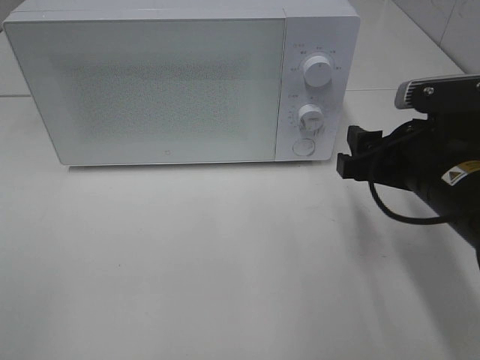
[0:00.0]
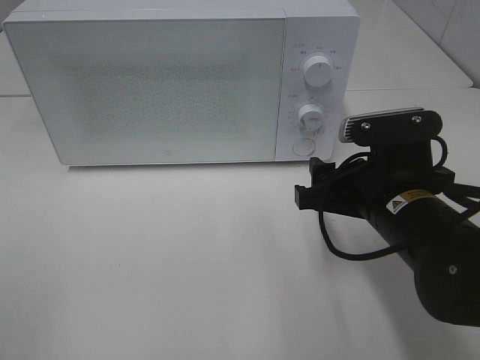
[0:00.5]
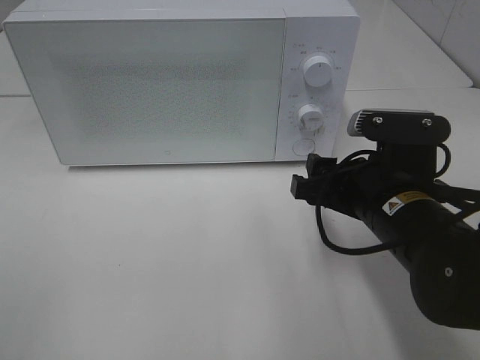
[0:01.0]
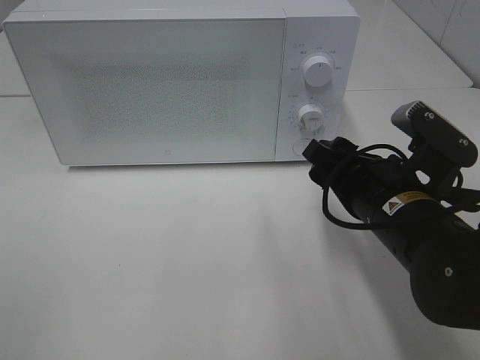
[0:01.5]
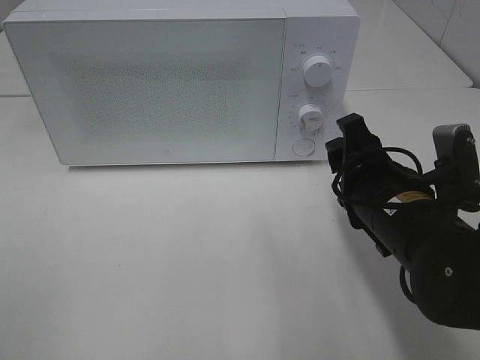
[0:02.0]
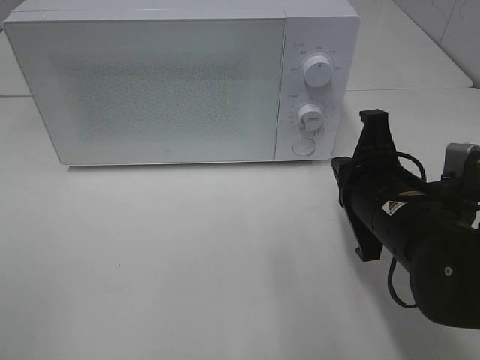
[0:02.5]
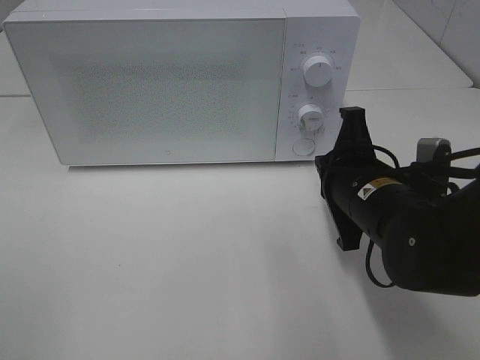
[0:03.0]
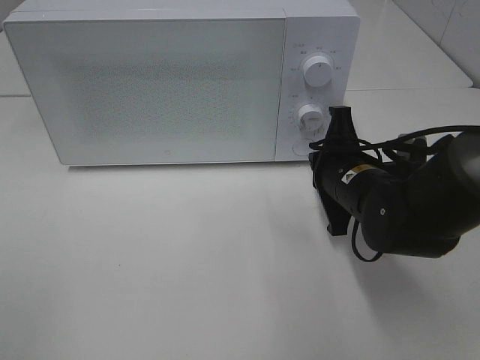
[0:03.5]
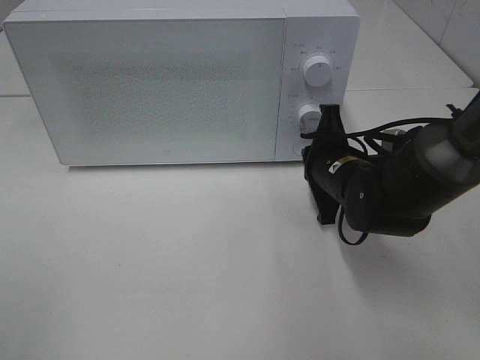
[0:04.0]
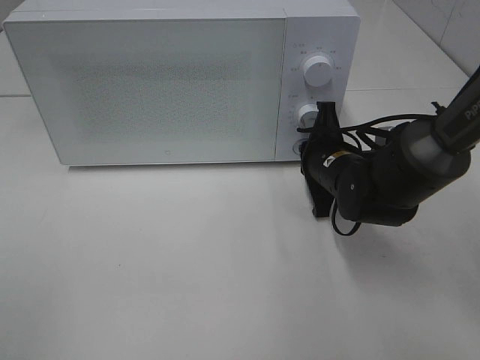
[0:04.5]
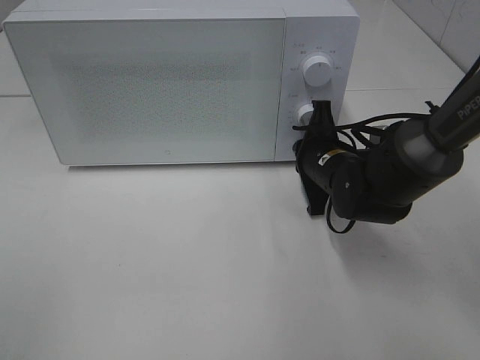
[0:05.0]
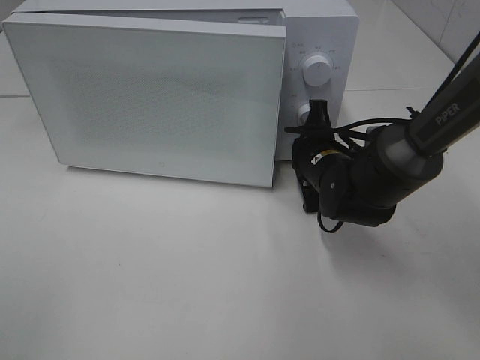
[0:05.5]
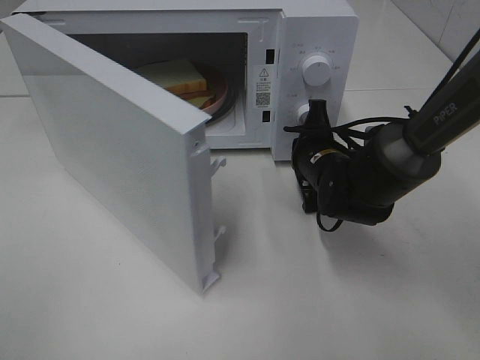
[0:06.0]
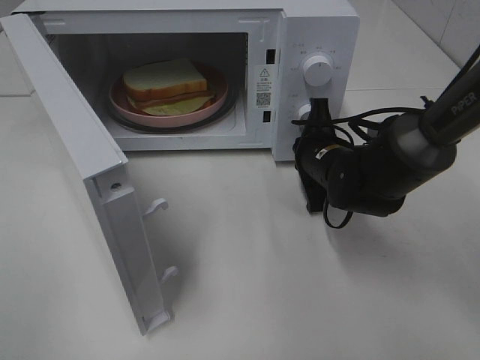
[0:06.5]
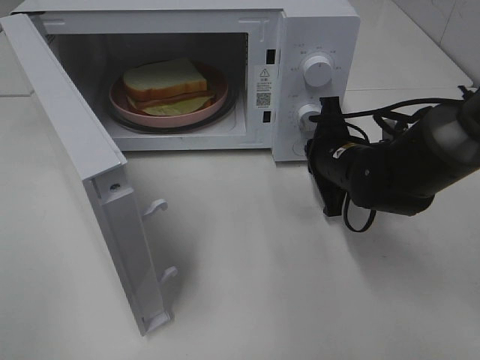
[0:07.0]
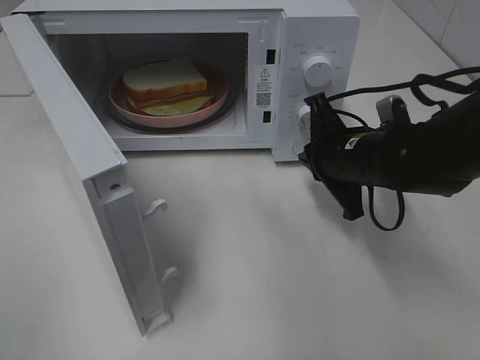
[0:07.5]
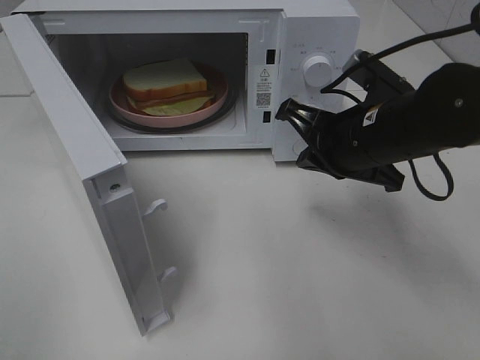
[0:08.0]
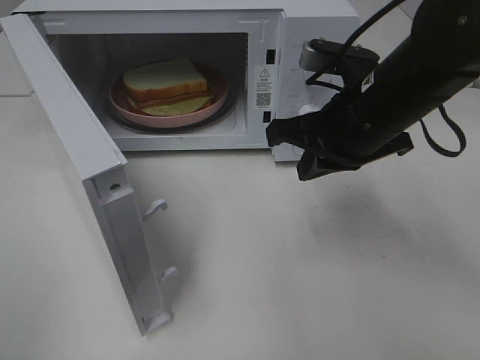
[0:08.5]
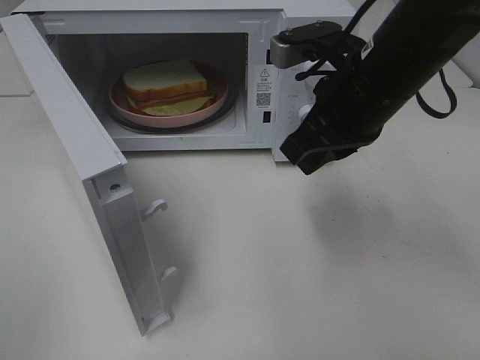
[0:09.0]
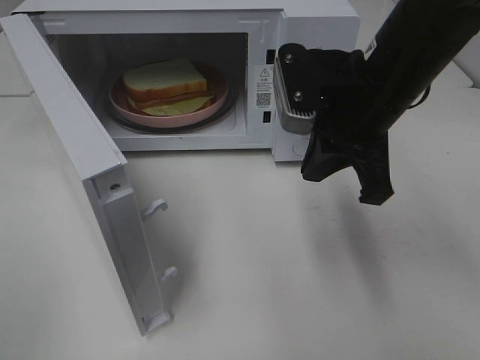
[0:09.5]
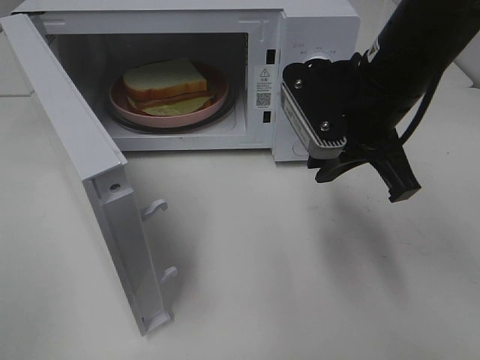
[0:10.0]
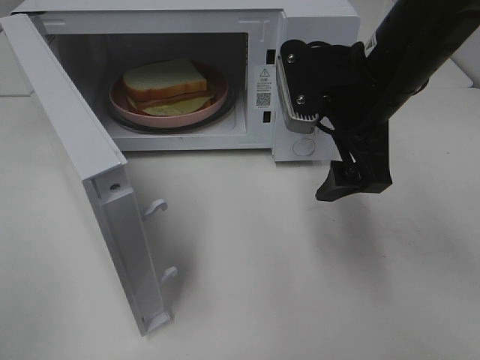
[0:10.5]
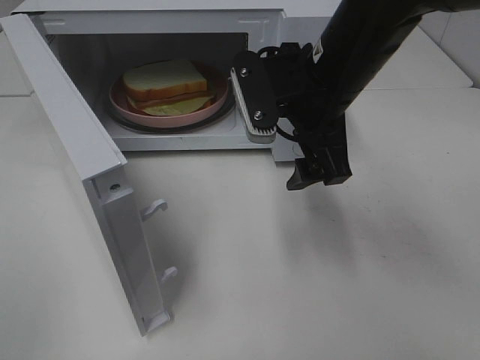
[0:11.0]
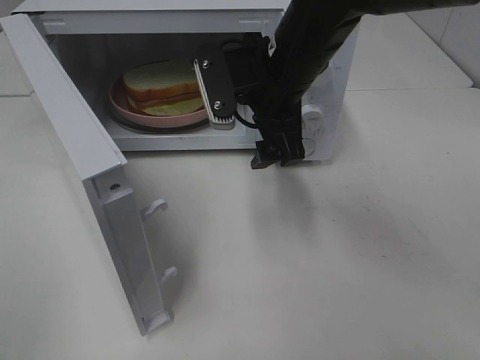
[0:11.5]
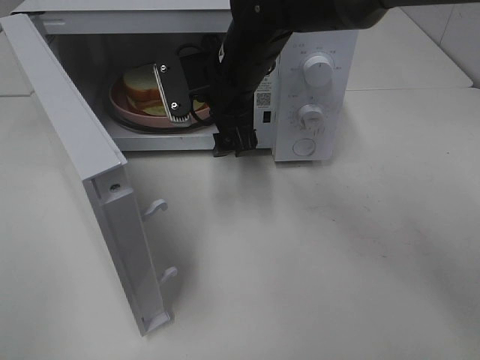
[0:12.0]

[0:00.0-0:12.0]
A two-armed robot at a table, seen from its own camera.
Task of the whole recording: Heat Sandwich.
Step, 0:00.0 to 0:07.5: Right hand: press the switch.
0:00.0 to 0:02.0: The right gripper moves approximately 5 cm.
0:02.0 to 0:04.0: The right gripper travels forward and downward by about 10 cm, and closes.
0:06.0 to 0:08.0: The right gripper heads upward and backward, covering approximately 15 cm.
0:08.0 to 0:10.0: The right gripper shifts roughly 5 cm upward.
0:10.0 to 0:12.0: The right gripper is displaced to the left and forward by about 15 cm, and opens its fingers.

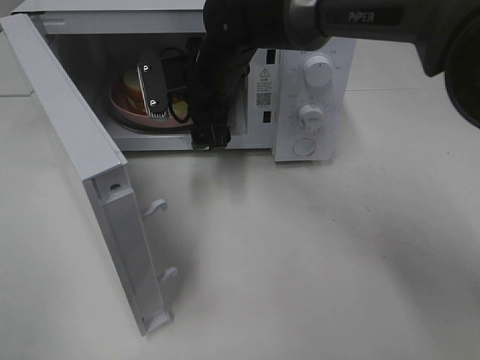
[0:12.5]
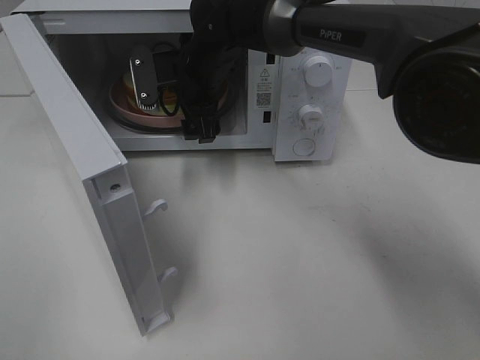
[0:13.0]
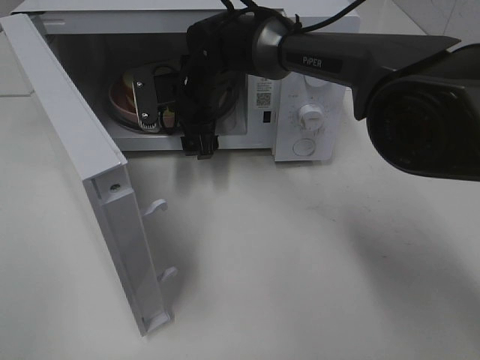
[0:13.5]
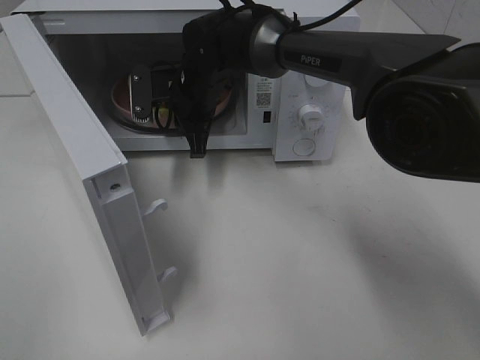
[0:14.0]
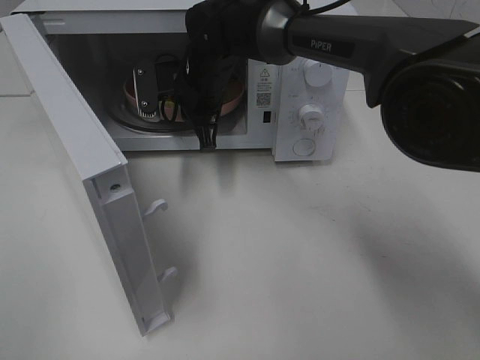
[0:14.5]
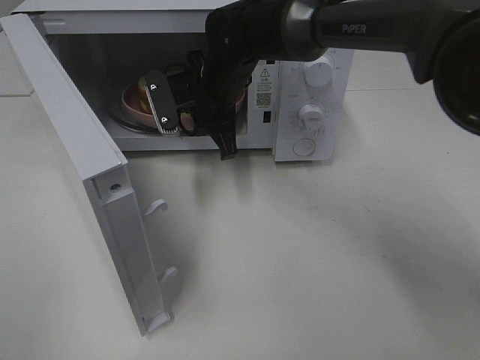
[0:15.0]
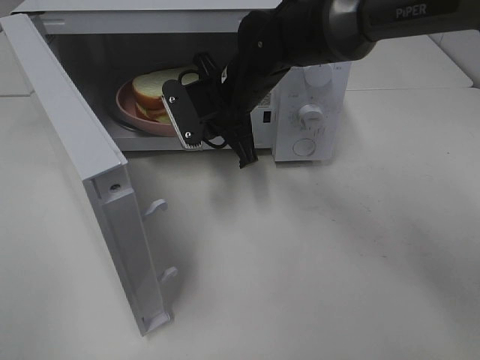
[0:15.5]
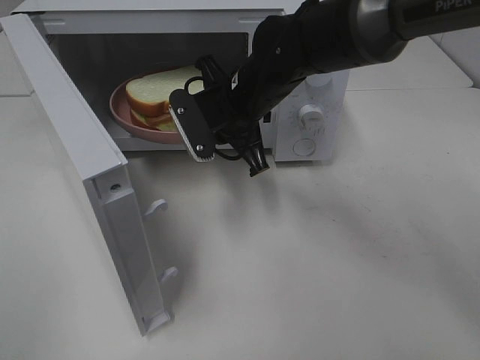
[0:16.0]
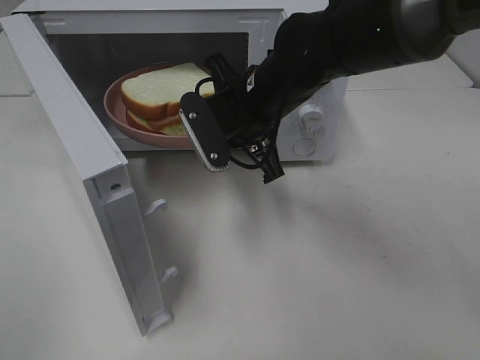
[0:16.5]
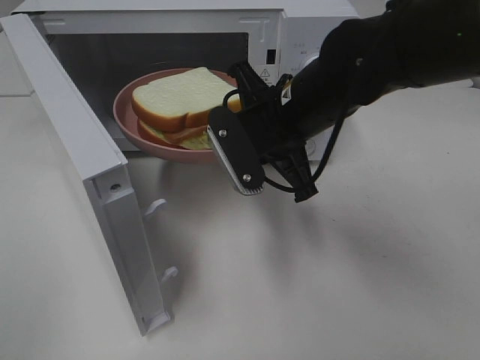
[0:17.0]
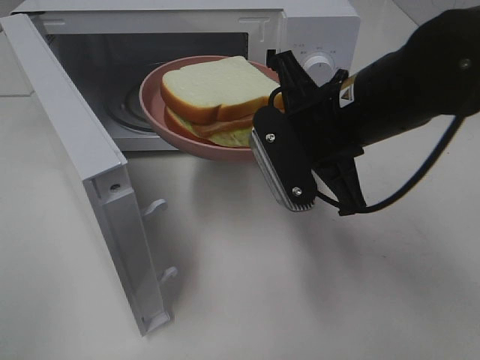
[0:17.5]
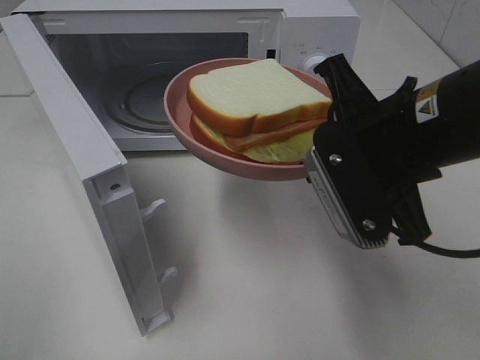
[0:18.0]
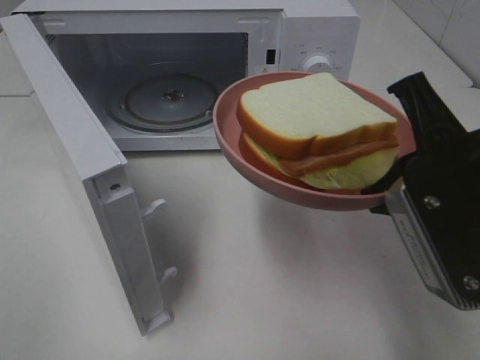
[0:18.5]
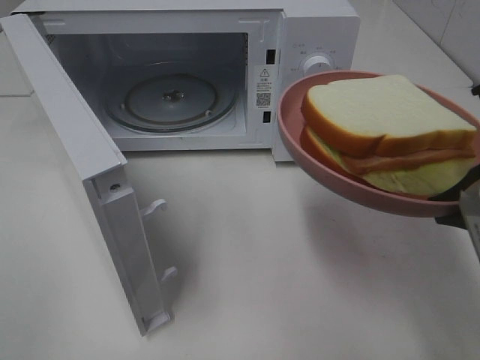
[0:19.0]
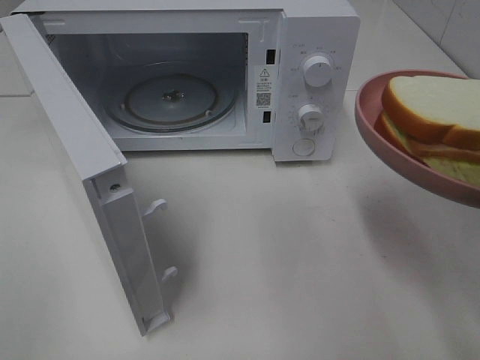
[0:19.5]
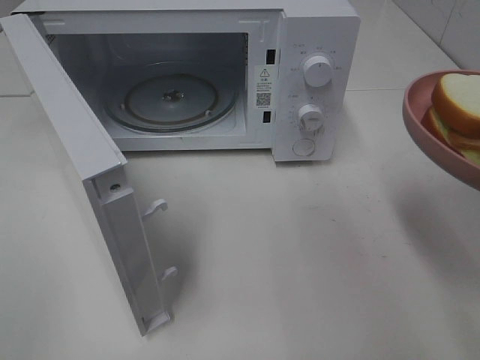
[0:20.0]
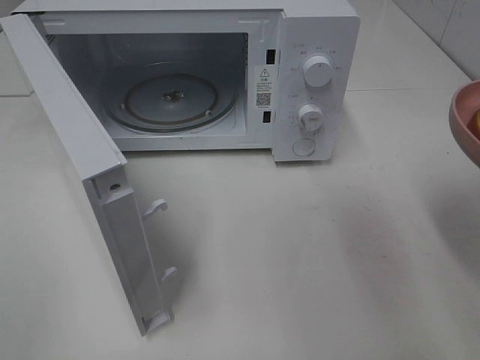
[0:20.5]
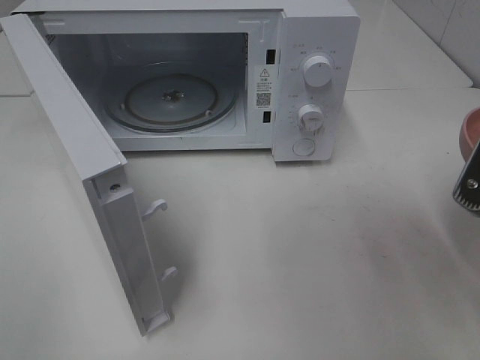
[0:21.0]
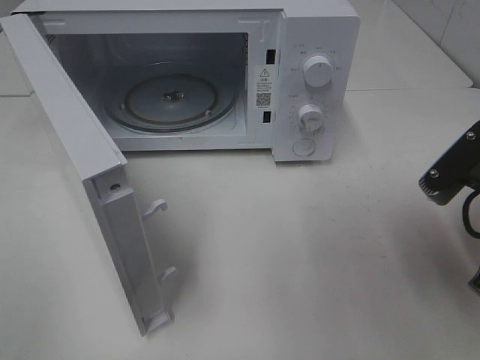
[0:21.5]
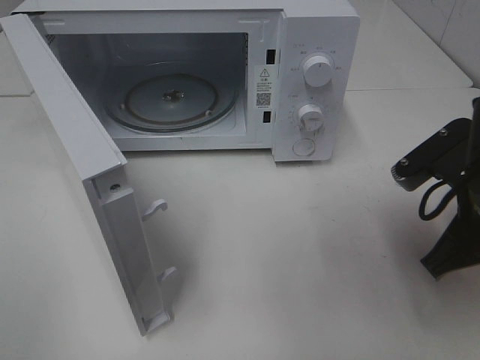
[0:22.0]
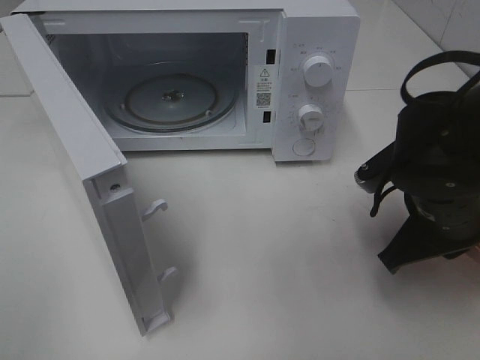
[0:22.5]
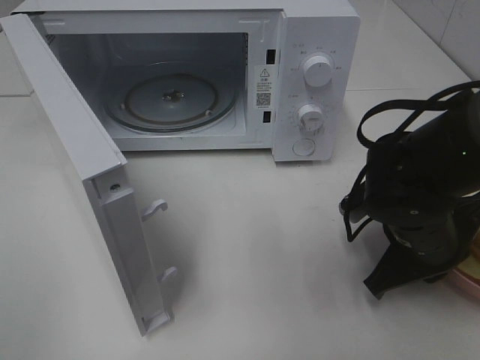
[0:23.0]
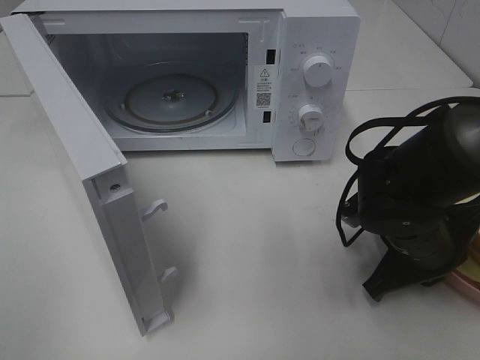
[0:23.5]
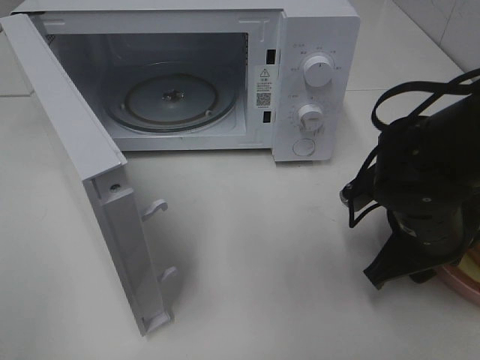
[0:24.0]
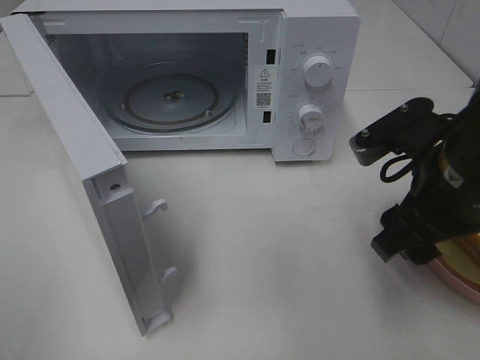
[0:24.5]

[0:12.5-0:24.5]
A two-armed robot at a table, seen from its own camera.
Task of the whole recording: Heat Sandwich.
0:12.5 to 0:14.5: The right gripper closes up.
0:14.5 to 0:16.5: The right gripper moves backward and to the right, roughly 10 cm.
0:16.5 to 0:18.5: The right gripper heads backward and to the right, covering approximately 25 cm.
0:18.5 to 0:20.5: The right gripper moves to the right, approximately 5 cm.
0:20.5 to 0:22.5: The right gripper heads downward, forward and to the left, covering about 15 cm.
0:22.5 to 0:24.5: The right gripper is displaced upward by some 5 cm, and opens up.

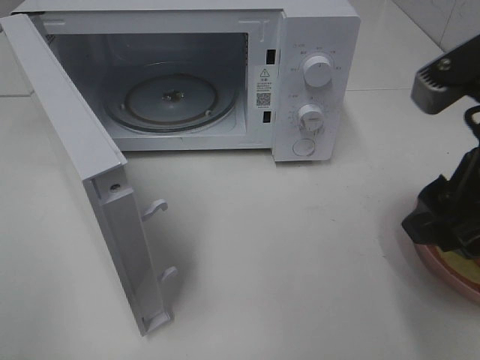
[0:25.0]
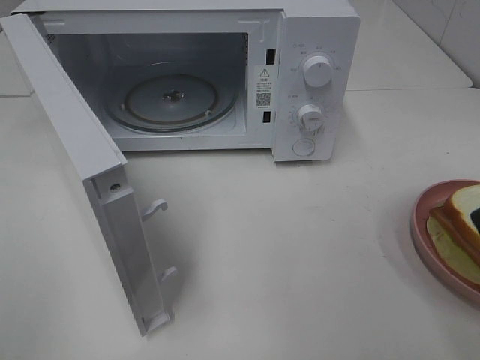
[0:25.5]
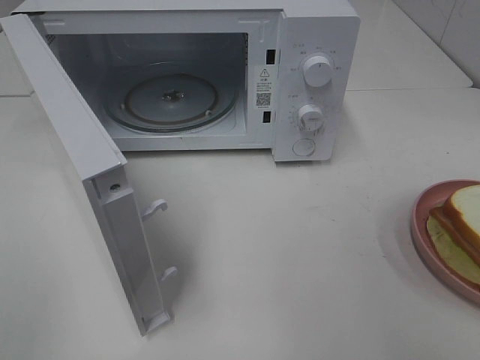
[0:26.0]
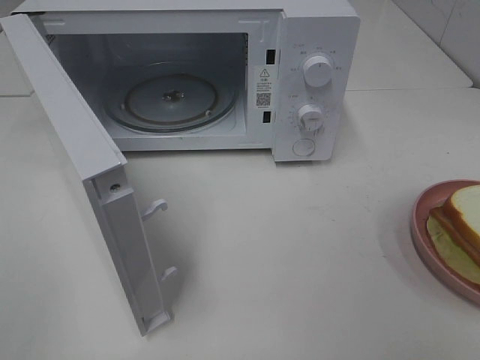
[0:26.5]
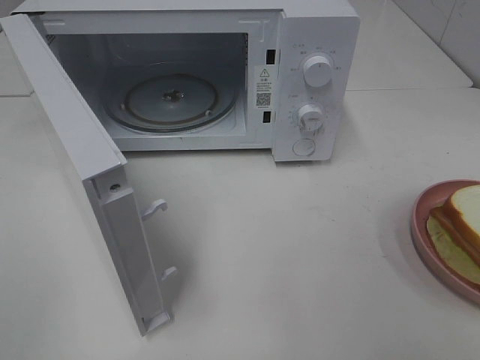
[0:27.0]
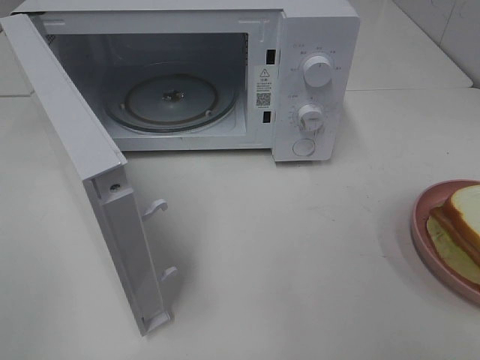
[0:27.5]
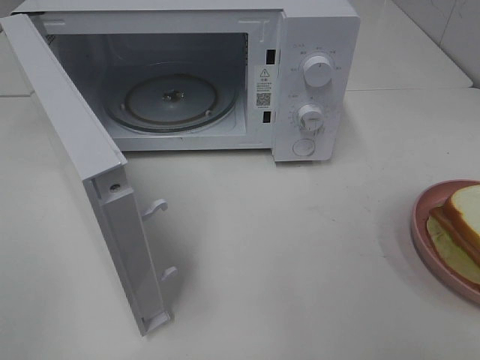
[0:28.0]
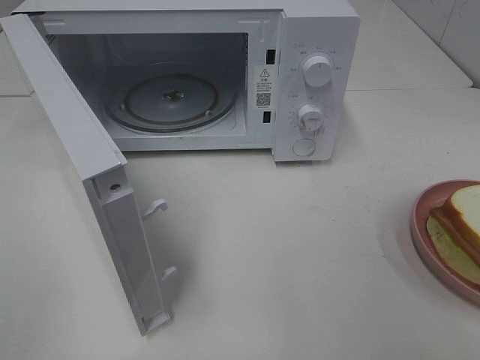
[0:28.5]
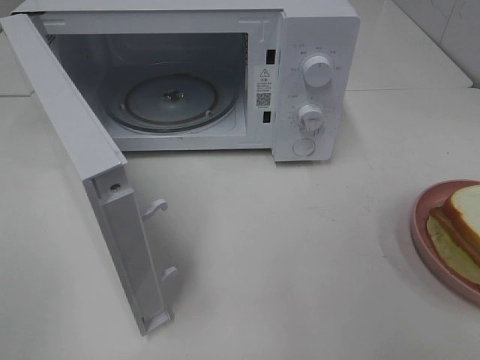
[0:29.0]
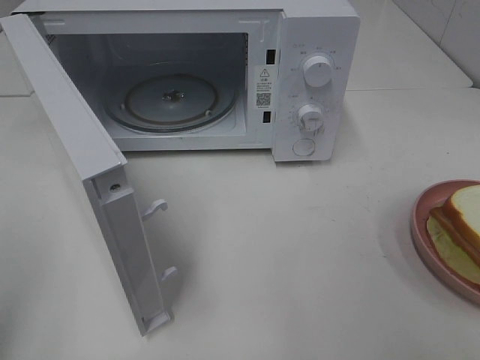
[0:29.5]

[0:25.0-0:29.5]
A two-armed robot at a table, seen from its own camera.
Task of the whole recording: Heat Sandwich.
0:25.0 to 0:27.0: The right gripper goes approximately 20 cm backward and to the right.
